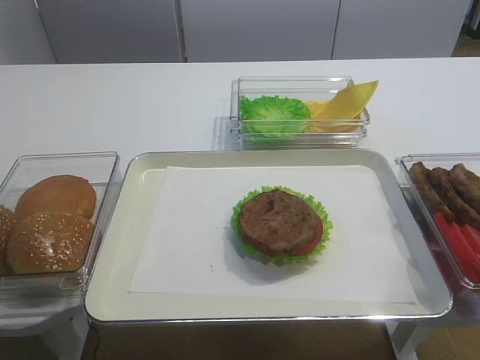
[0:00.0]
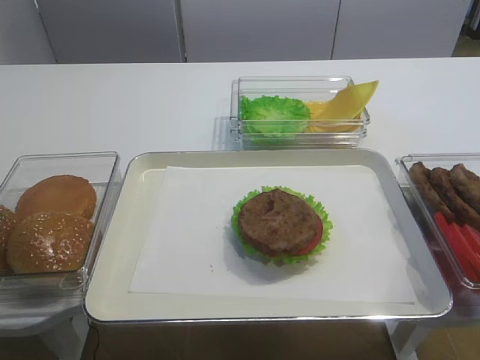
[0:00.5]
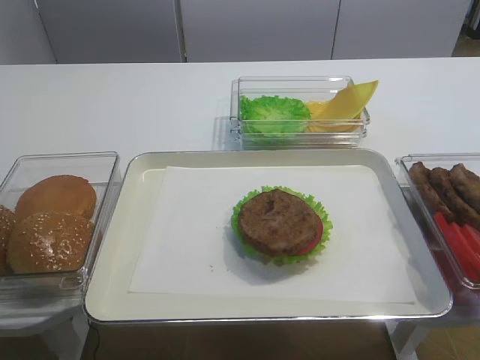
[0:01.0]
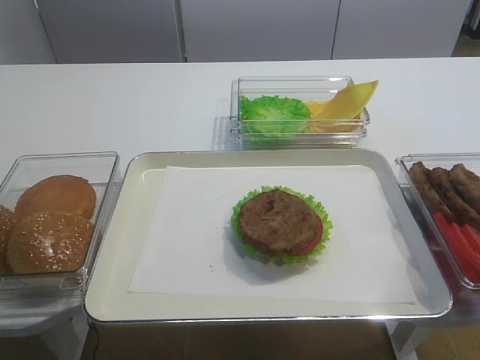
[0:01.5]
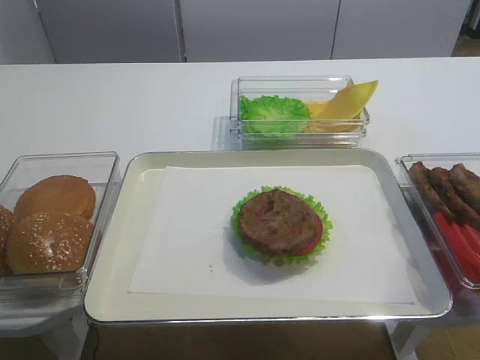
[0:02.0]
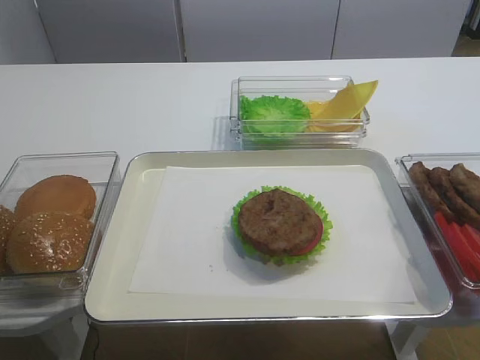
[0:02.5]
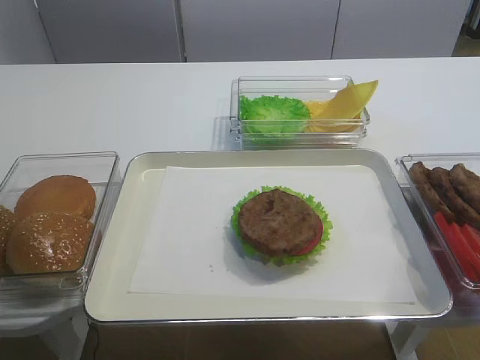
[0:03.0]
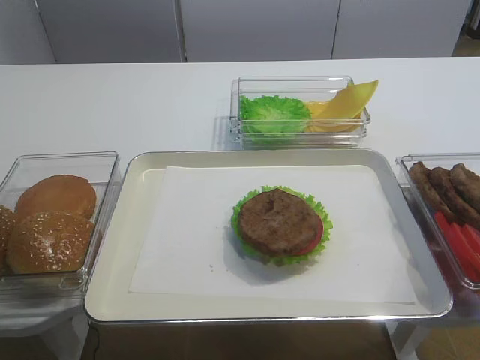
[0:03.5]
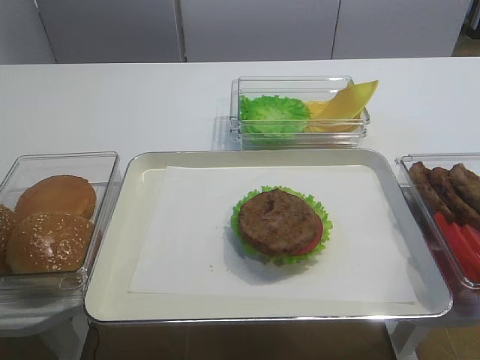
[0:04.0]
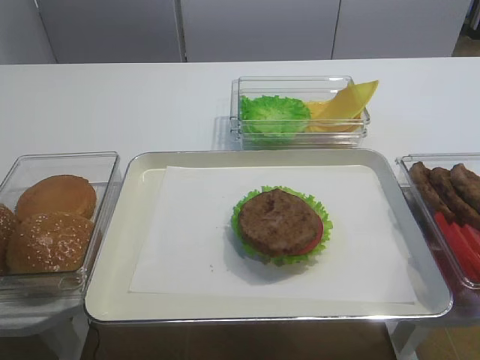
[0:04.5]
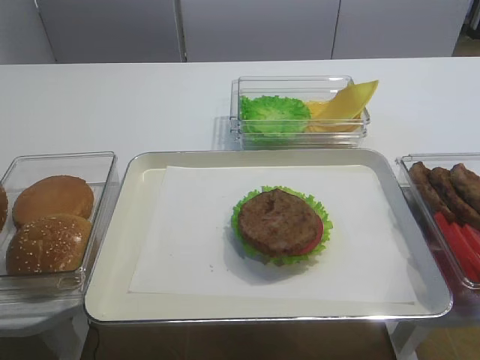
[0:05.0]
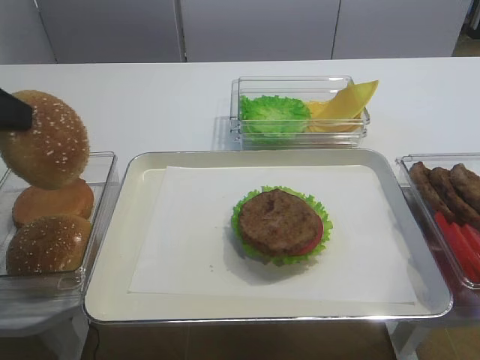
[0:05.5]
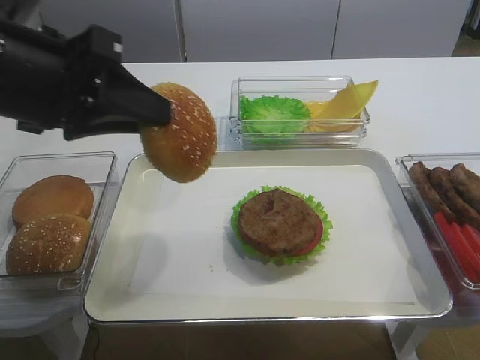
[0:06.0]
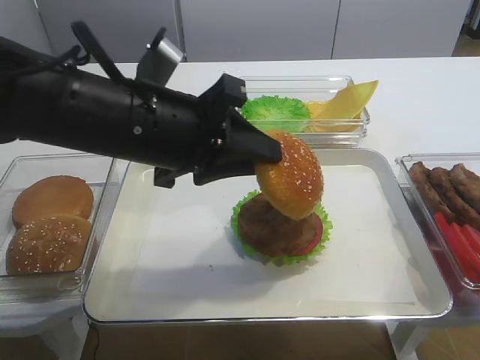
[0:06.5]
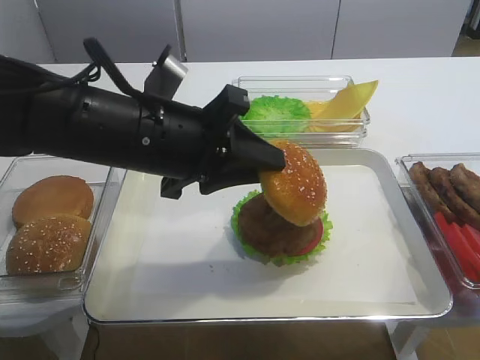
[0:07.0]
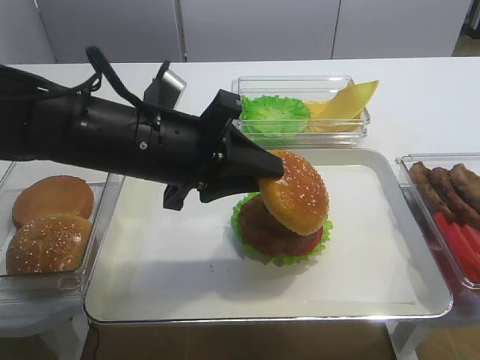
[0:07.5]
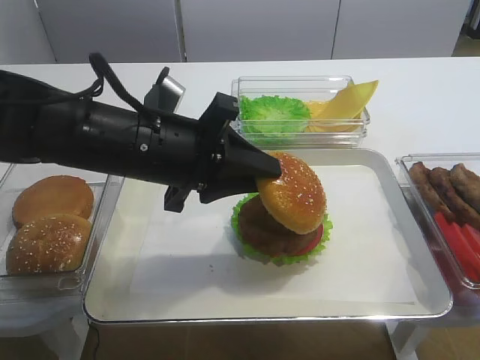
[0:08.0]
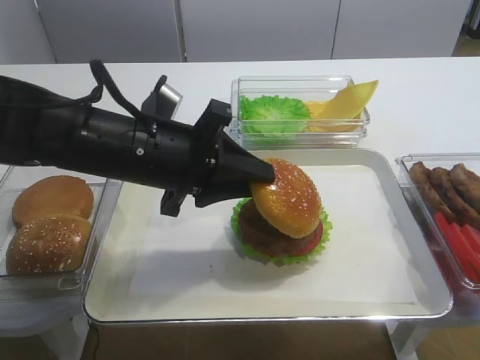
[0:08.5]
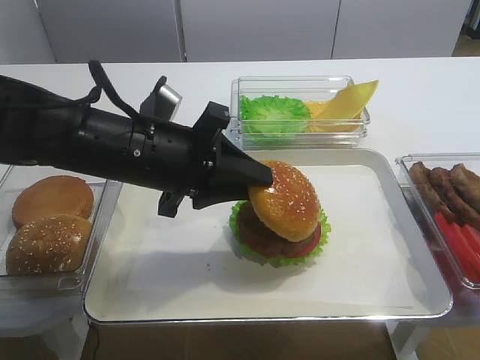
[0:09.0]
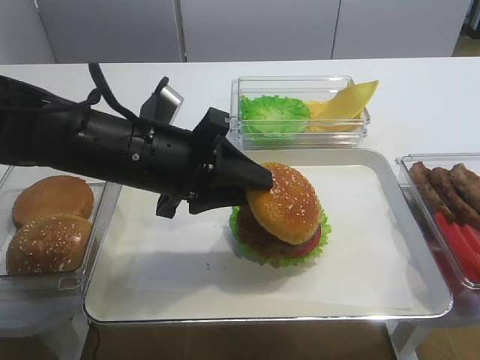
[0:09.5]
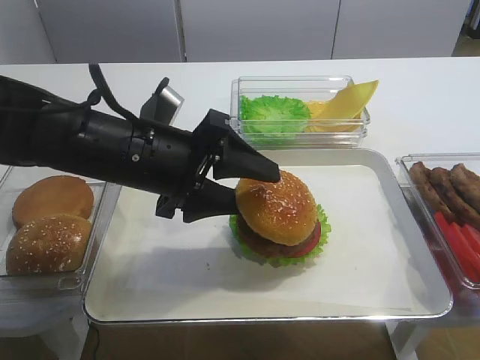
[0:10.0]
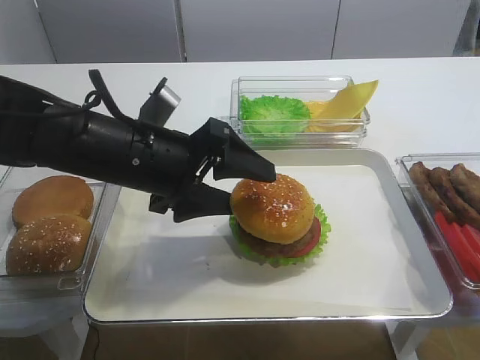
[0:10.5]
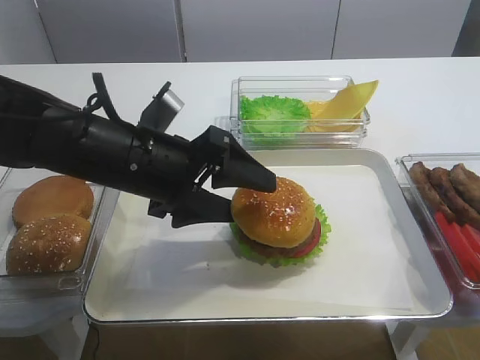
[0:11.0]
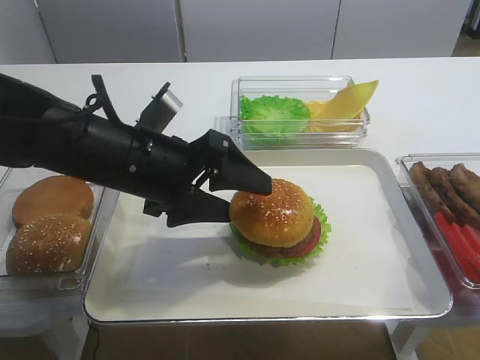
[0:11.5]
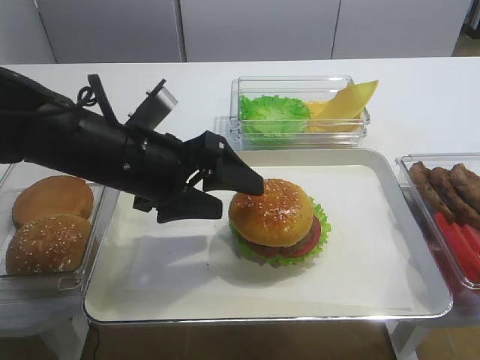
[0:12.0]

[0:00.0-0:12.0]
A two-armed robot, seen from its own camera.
Step, 0:00.0 to 0:05.0: Pick up the hamburger lid with the left gripper.
Step, 0:05.5 to 0:12.0: Place the hamburger lid on the cutlet slice with the left gripper.
0:04.0 to 0:06.0: The left gripper moves to the right and upward, approximately 15 cm.
0:06.0 to 0:08.0: The left gripper heads downward and to the right, covering about 15 cm.
0:08.0 to 0:10.0: The left gripper opens up.
0:10.0 to 0:12.0: The grippers move only a little.

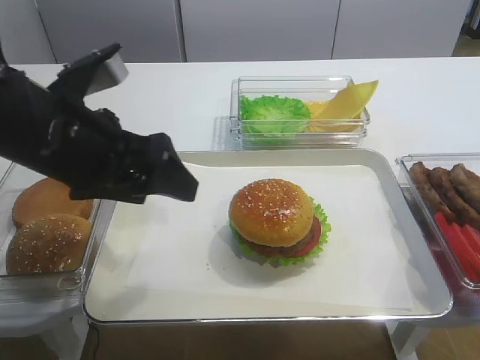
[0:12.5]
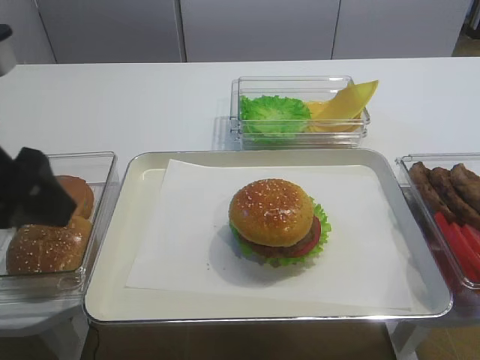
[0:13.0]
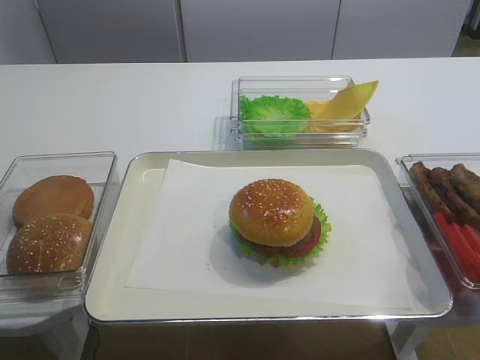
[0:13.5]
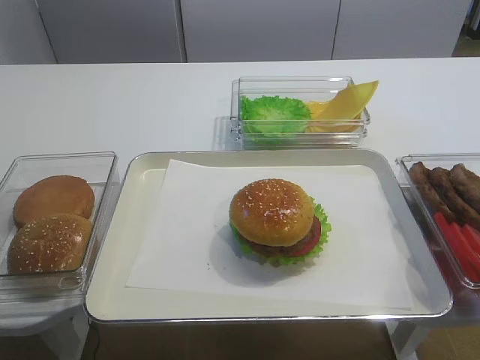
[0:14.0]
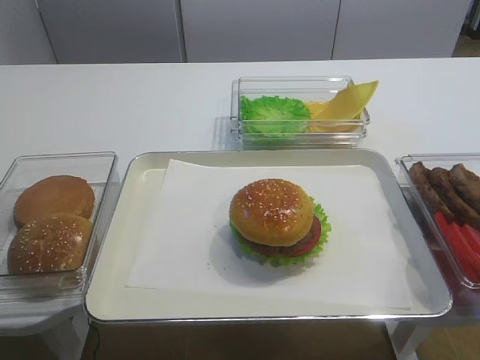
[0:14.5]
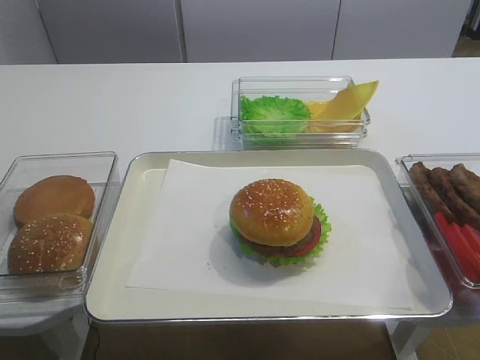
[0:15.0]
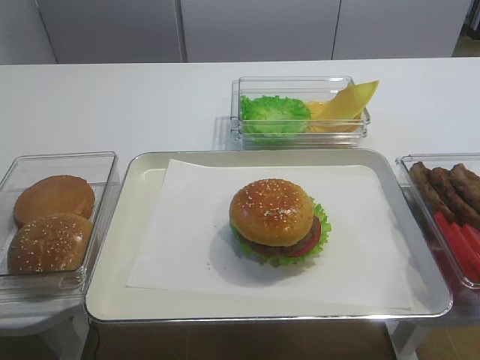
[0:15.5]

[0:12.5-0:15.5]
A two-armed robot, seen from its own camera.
0:12.5 to 0:14.0: The left gripper goes approximately 30 cm backward and to the left.

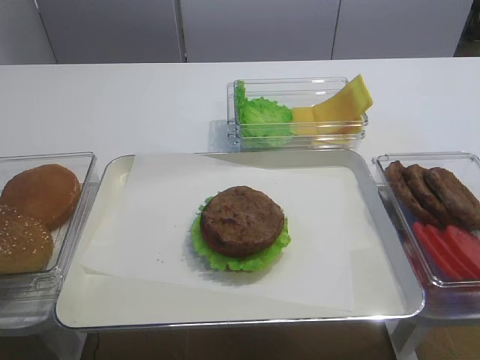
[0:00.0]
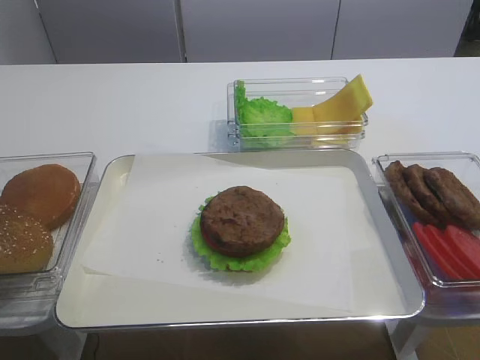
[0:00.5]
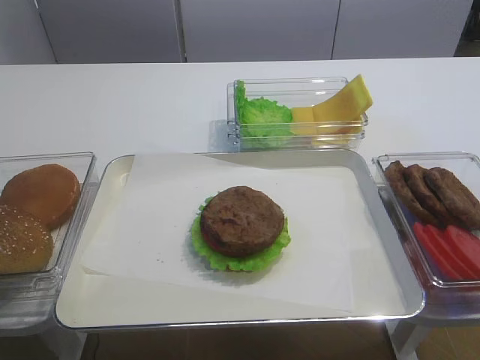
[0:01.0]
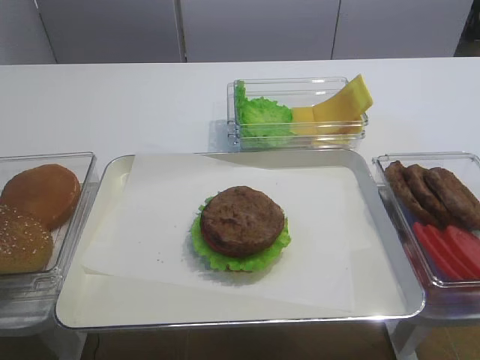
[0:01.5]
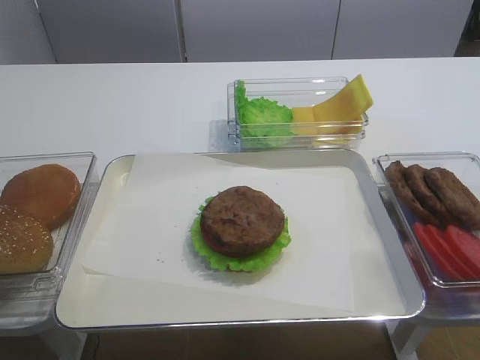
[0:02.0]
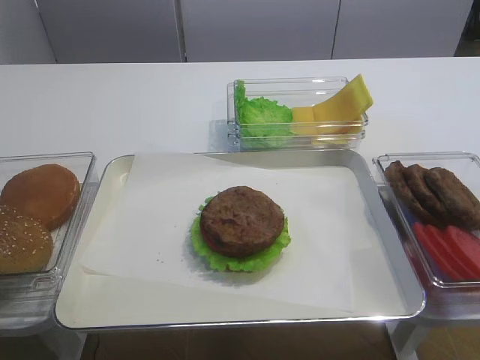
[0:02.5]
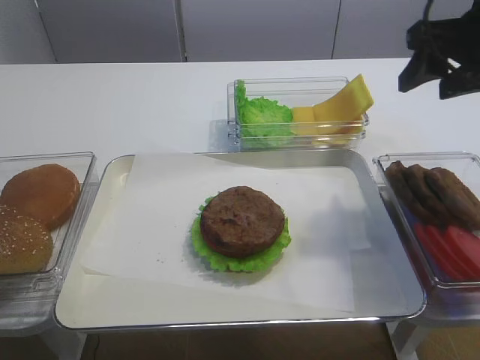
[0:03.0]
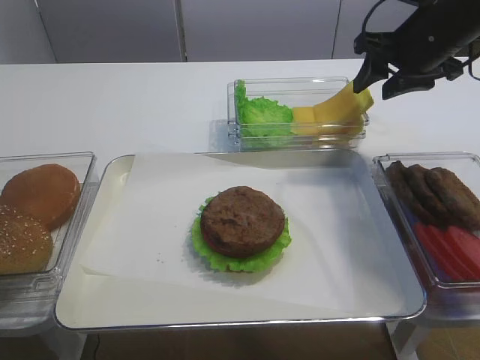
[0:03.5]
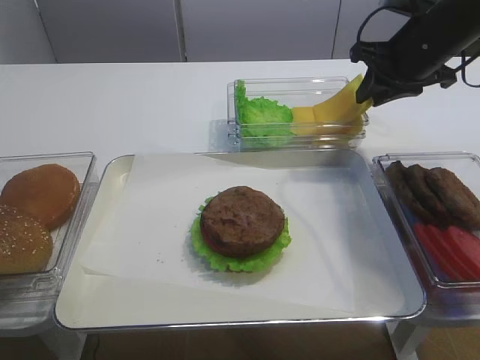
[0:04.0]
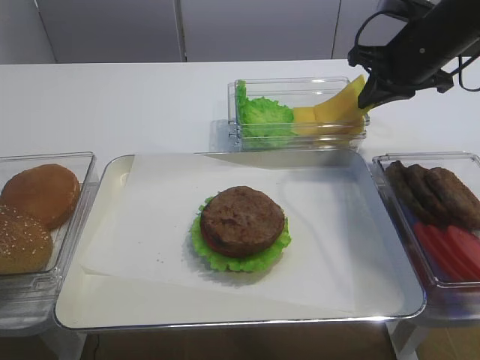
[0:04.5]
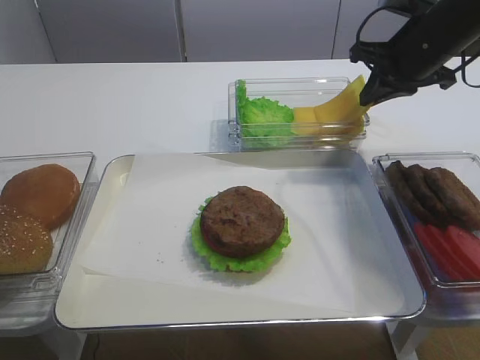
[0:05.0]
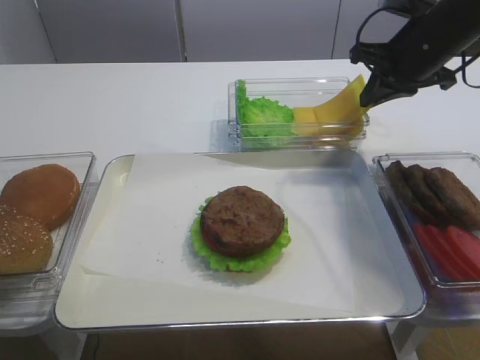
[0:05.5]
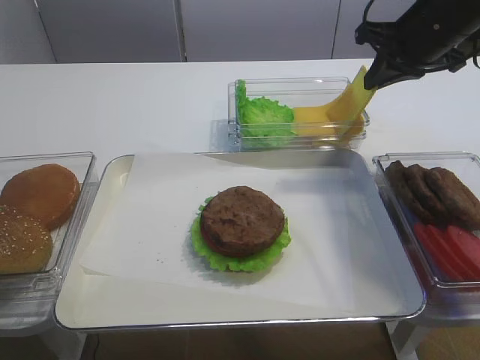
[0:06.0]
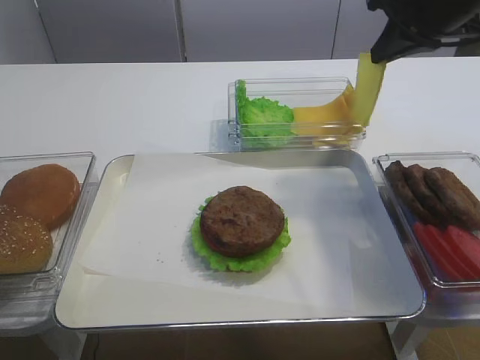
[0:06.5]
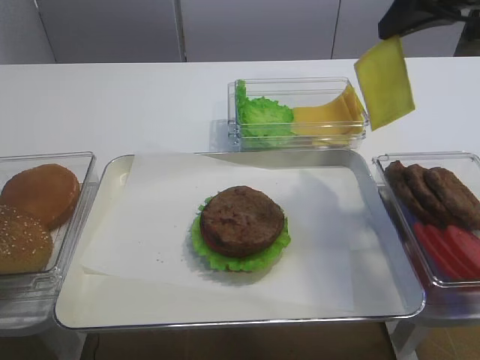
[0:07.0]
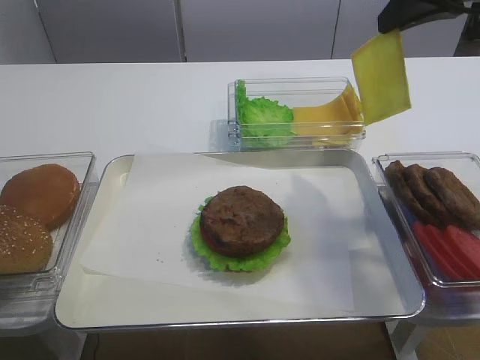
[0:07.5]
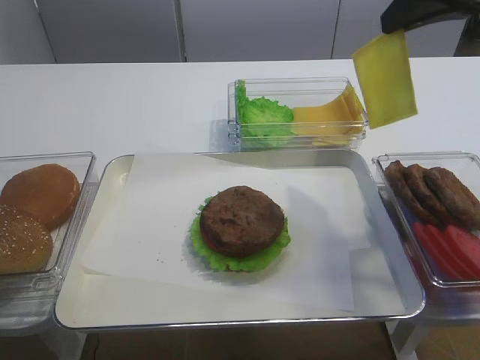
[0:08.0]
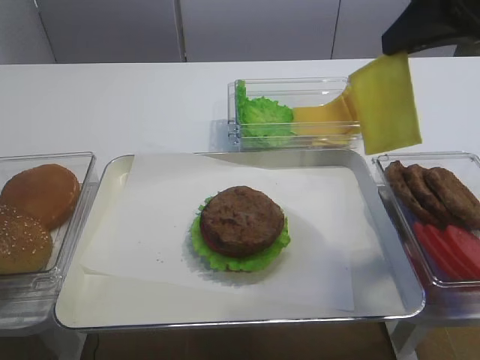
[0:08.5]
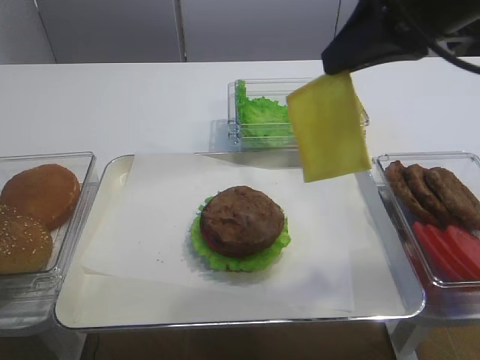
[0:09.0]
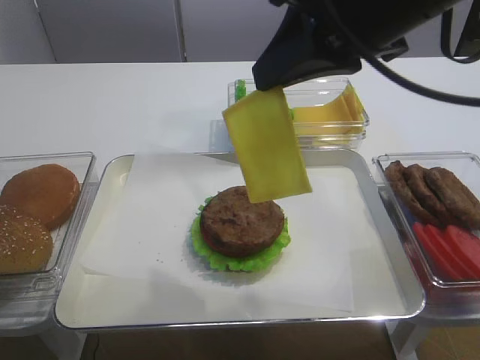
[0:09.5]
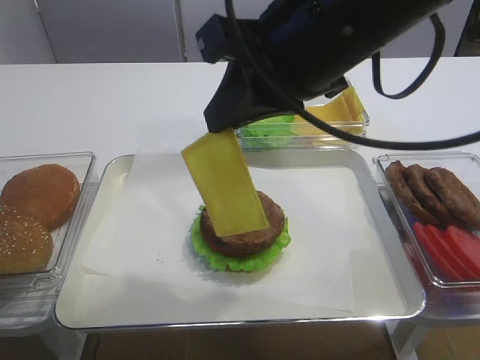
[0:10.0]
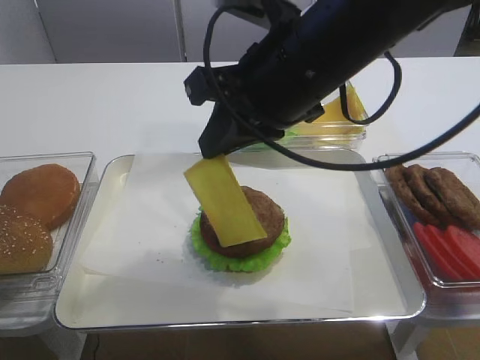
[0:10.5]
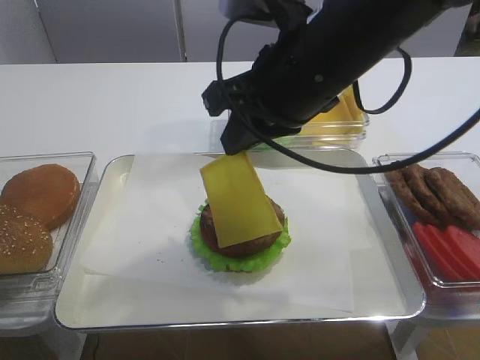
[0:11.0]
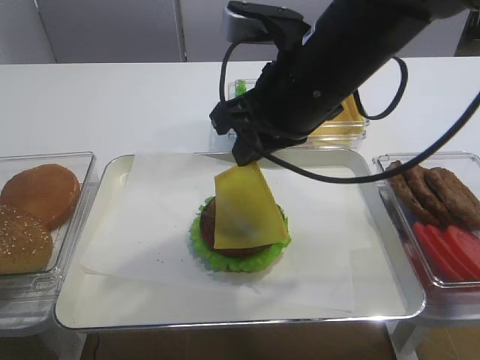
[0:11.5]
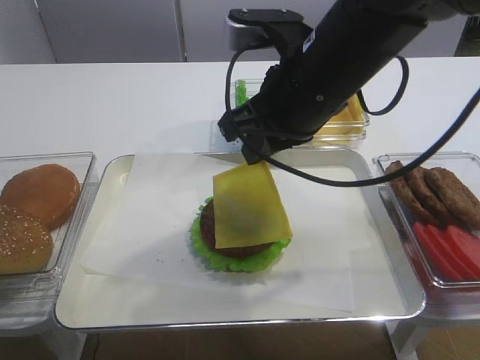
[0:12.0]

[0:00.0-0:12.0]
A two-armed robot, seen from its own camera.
Step, 0:00.0 to 0:06.0: Pick up the cheese slice with the right gripper.
0:02.0 to 0:04.0: The right gripper travels forward by roughly 40 cm, and closes up.
0:04.0 to 0:06.0: The grippers move only a little.
0:06.0 to 0:08.0: The right gripper heads upward and backward, covering approximately 15 cm.
0:08.0 to 0:10.0: The right gripper moves to the left and backward, about 15 cm.
0:10.0 to 0:12.0: The right gripper moves downward, about 5 cm.
